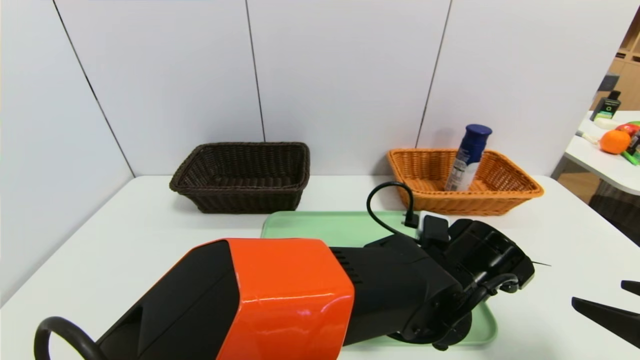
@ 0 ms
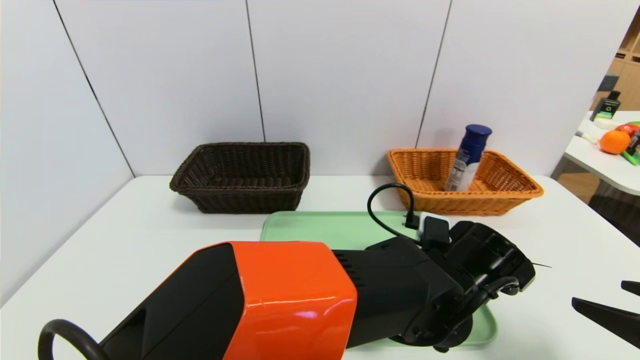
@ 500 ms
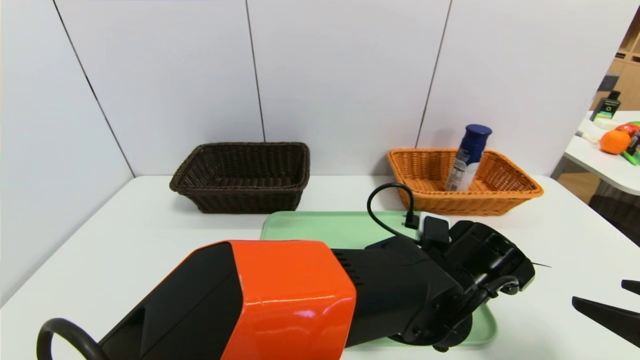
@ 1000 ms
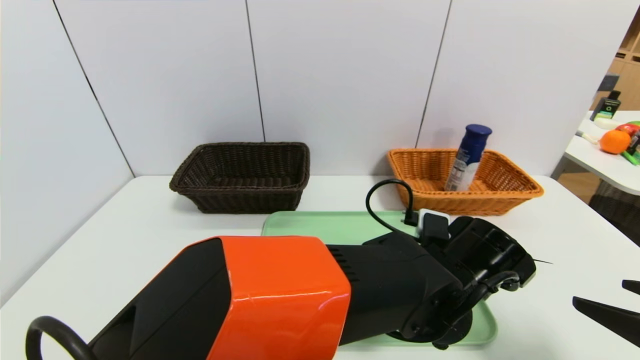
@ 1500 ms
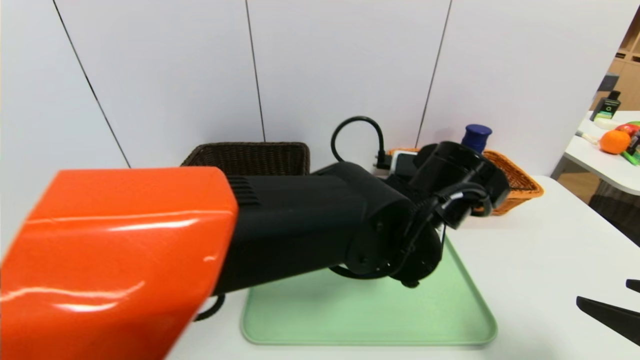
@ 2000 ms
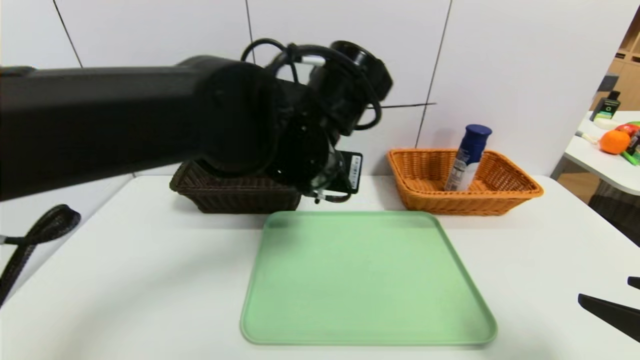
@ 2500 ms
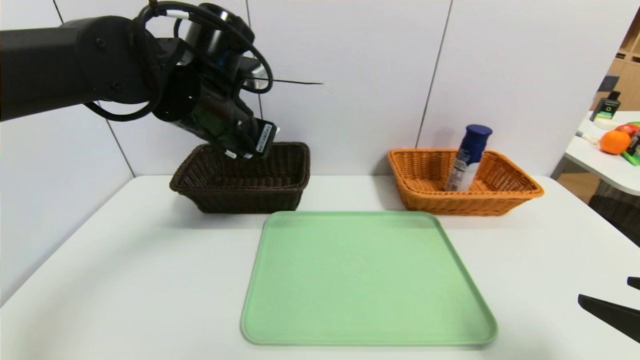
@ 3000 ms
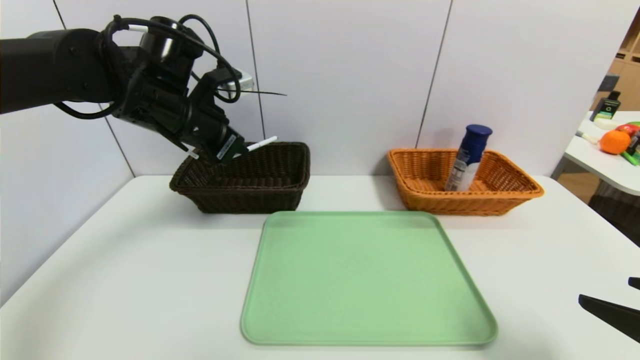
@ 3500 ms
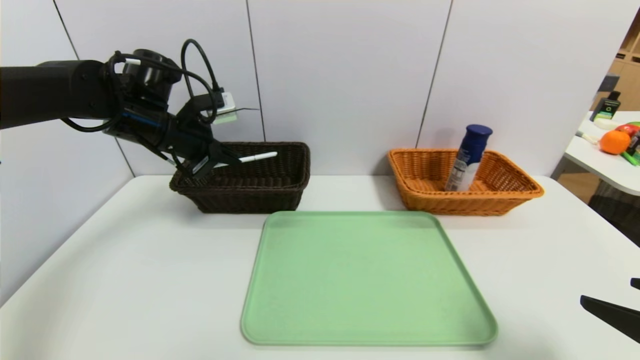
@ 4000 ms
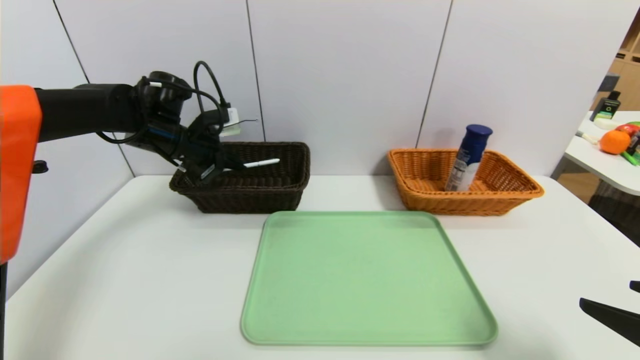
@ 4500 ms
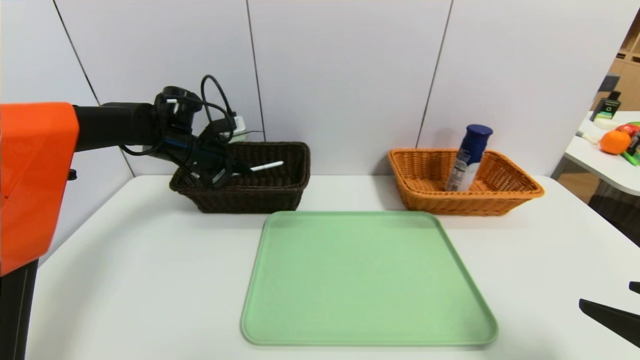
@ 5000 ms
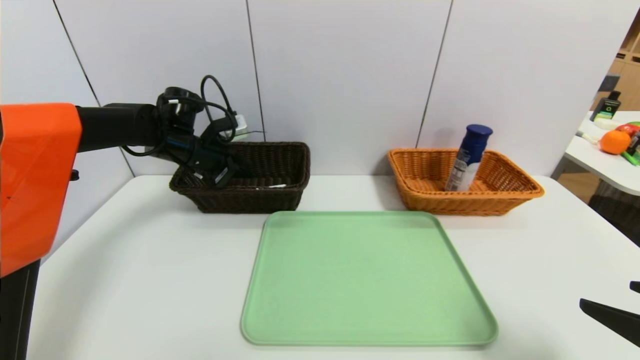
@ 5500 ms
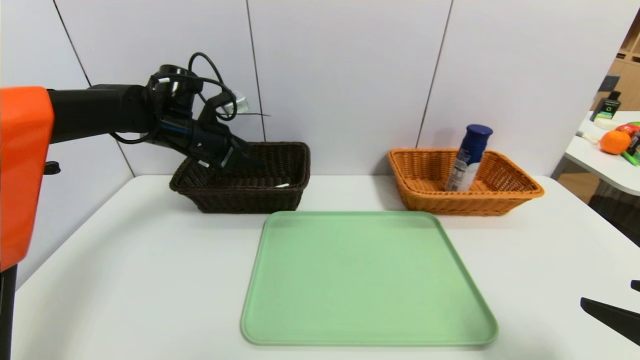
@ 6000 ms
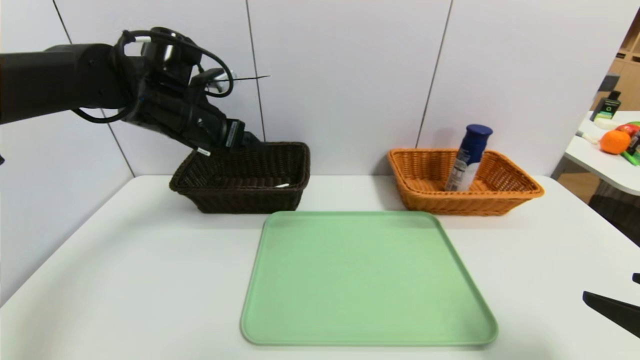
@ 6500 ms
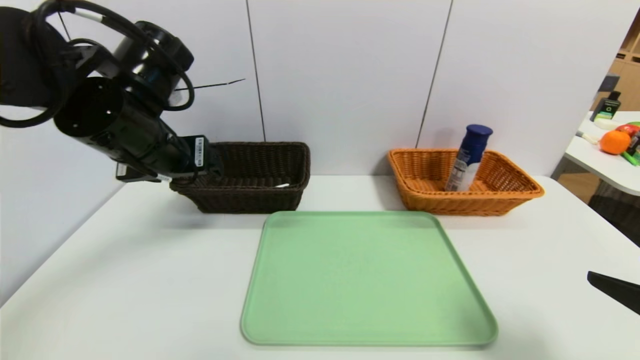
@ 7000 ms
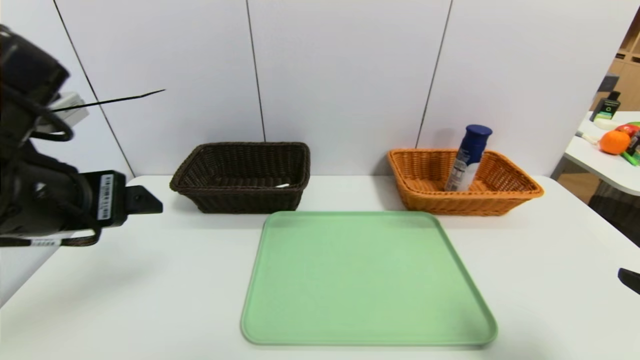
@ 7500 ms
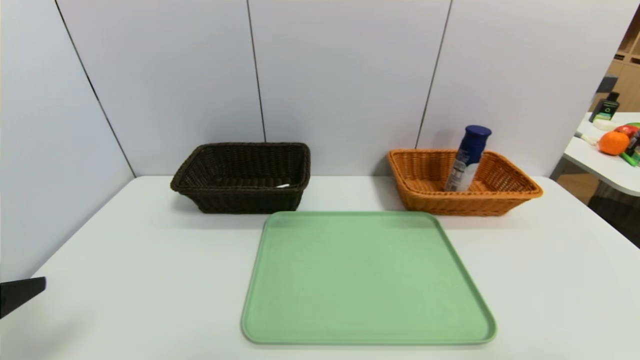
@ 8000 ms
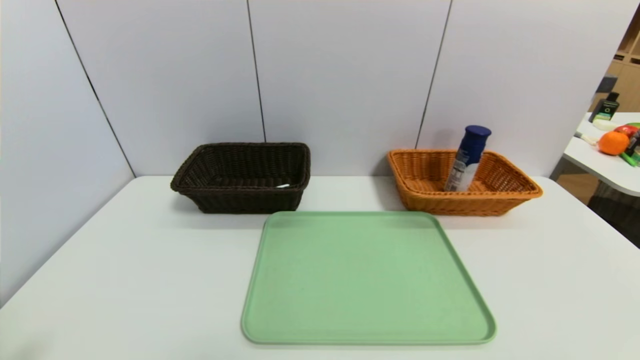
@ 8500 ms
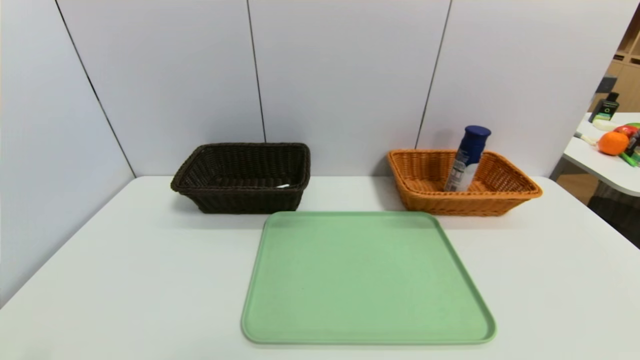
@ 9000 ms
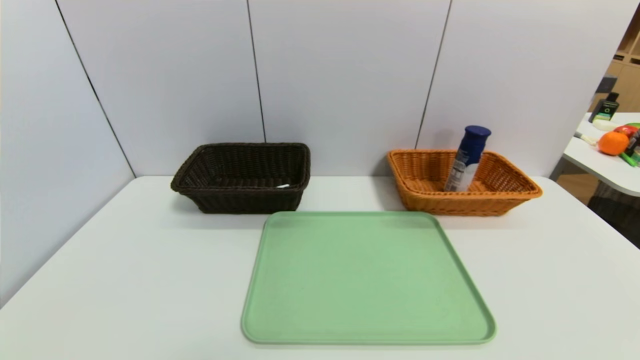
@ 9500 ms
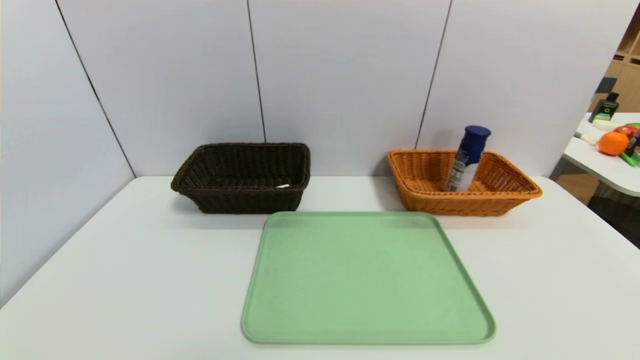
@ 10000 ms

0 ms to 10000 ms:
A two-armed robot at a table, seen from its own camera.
Task of the whole recording: place the food in the right basket with the right gripper, and place the non food items in the left basket with the left gripper.
Step, 0 ms to 5500 ms: Grasp the black marker and put it in the left basket.
0 ms to 2000 ms: The left gripper is displaced upward by roughly 10 cm, and closes.
2000 ms to 4000 ms: The left gripper travels to the left and forward by roughly 35 cm.
4000 ms to 6000 ms: The left gripper opens up.
6000 ms to 8000 ms: The left gripper travels backward by approximately 35 cm. The right gripper shifts some 5 cm backward.
8000 ms to 10000 ms: The left gripper moves downward and backward, roughly 15 cm.

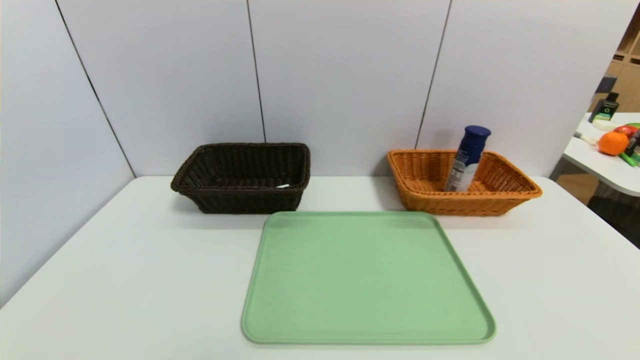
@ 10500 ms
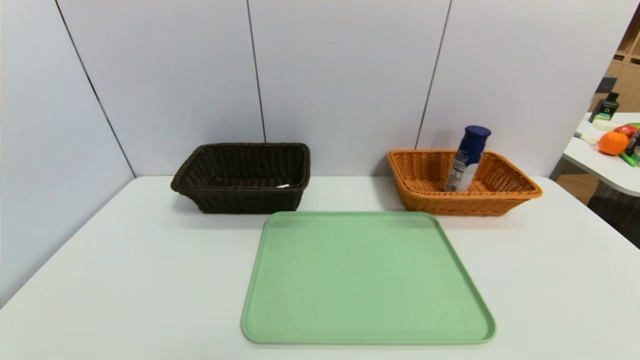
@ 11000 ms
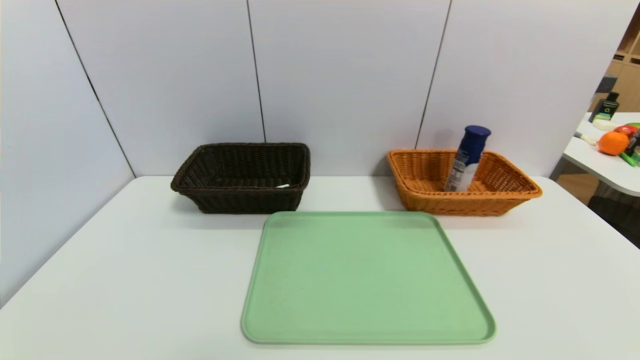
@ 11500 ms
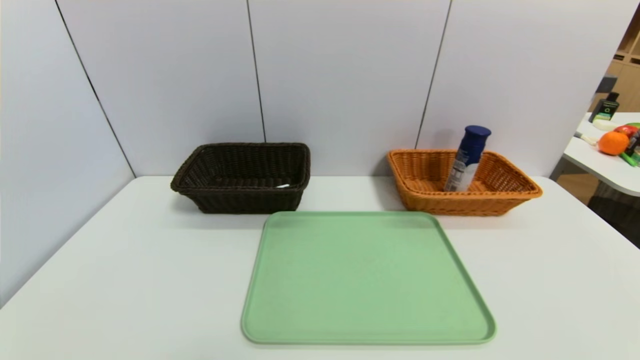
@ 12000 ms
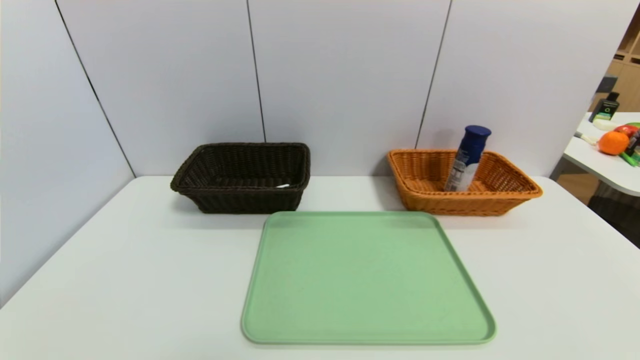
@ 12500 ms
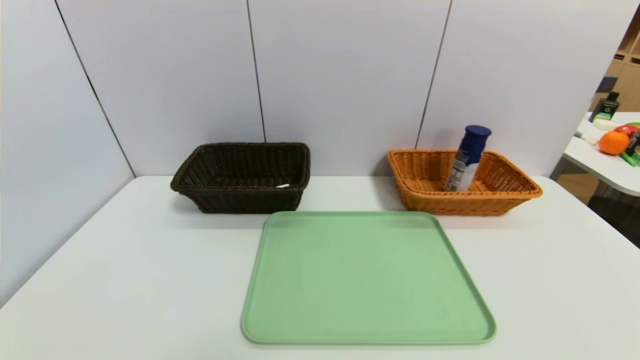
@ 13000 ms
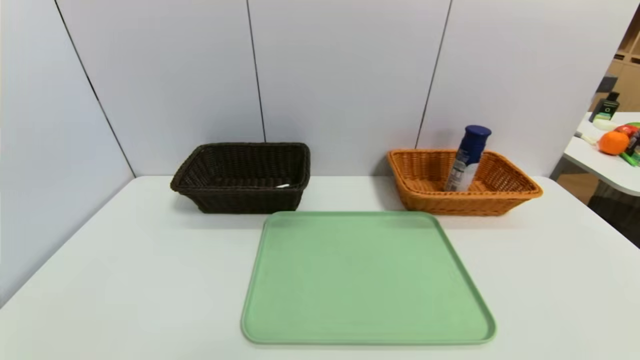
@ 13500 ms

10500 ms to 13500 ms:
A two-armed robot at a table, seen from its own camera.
Task of the whole recording: place the food in the right basket with the right gripper, and place the non food items in the left basket with the left gripper.
12000 ms to 13500 ms: Neither gripper changes place.

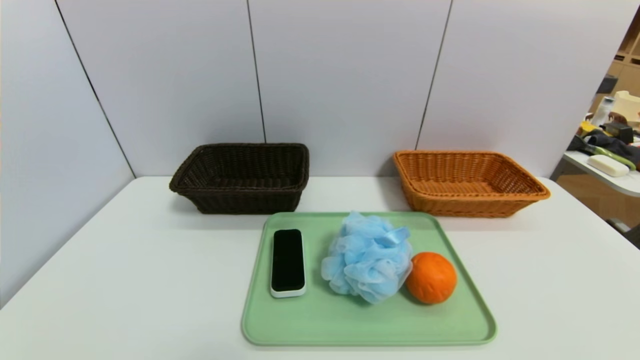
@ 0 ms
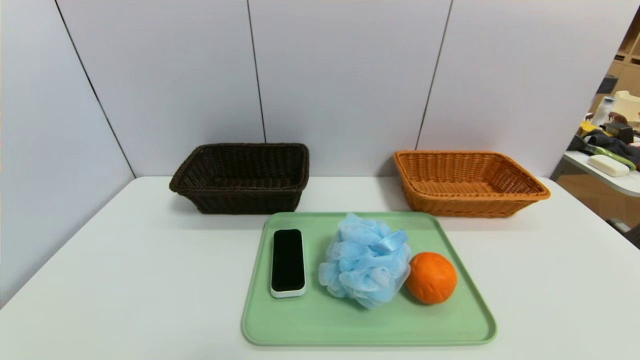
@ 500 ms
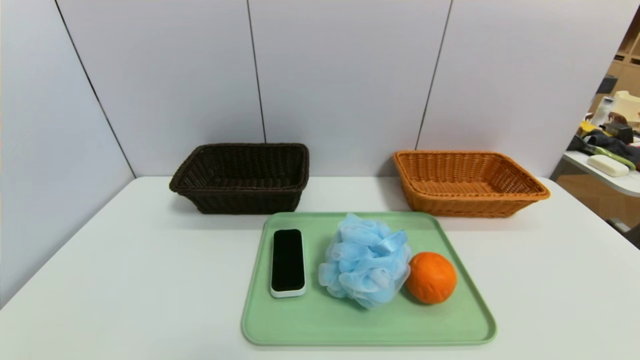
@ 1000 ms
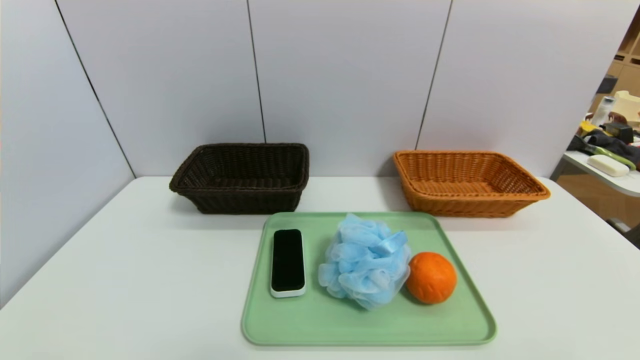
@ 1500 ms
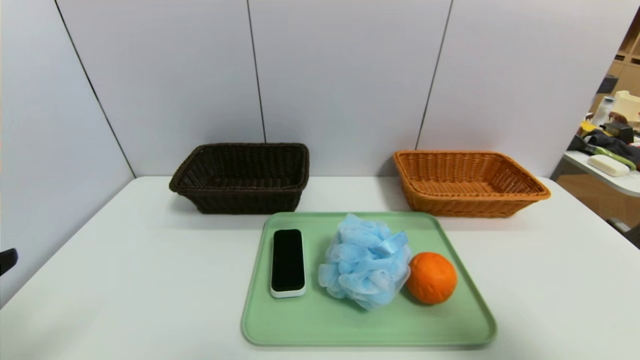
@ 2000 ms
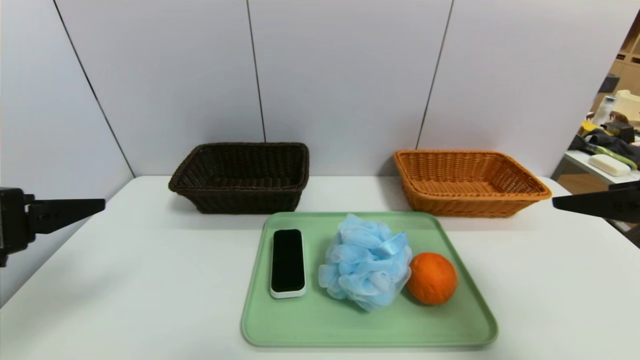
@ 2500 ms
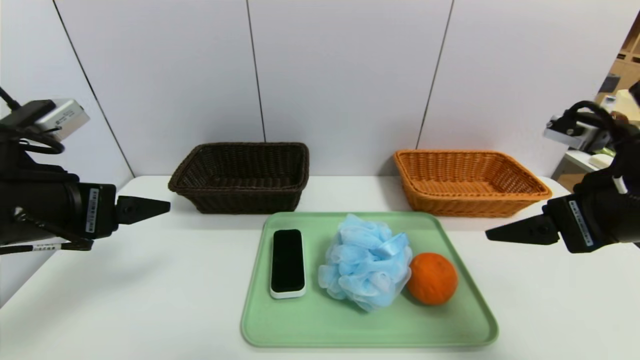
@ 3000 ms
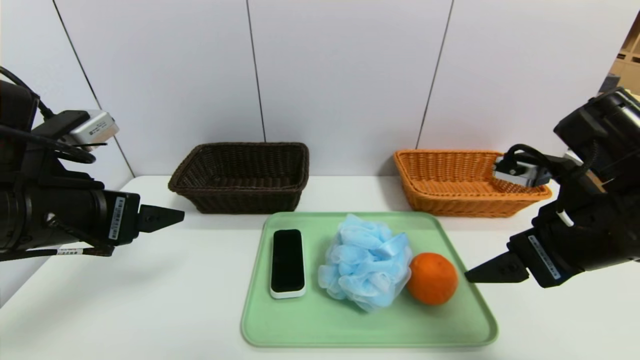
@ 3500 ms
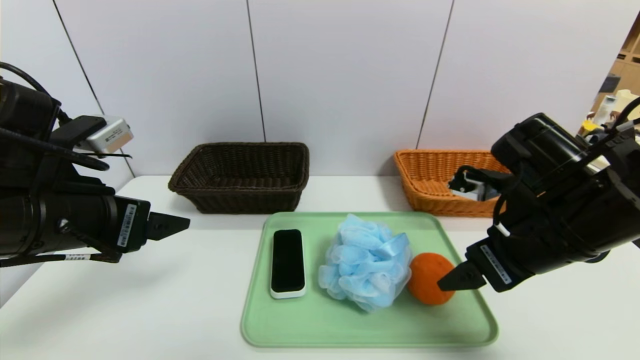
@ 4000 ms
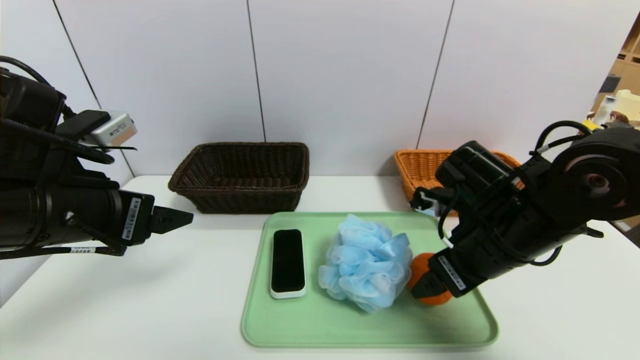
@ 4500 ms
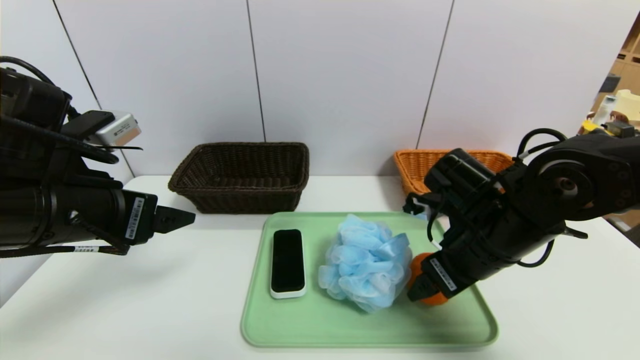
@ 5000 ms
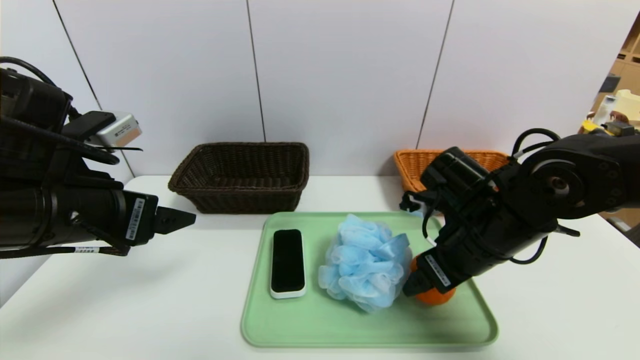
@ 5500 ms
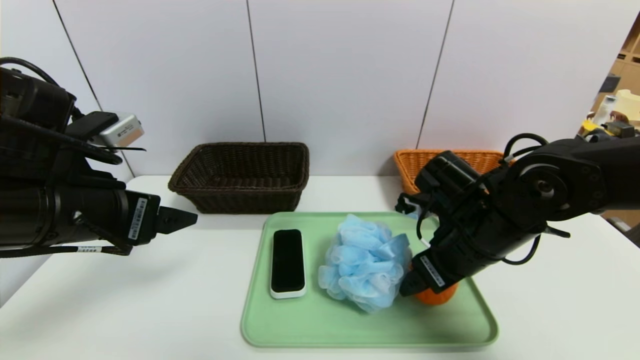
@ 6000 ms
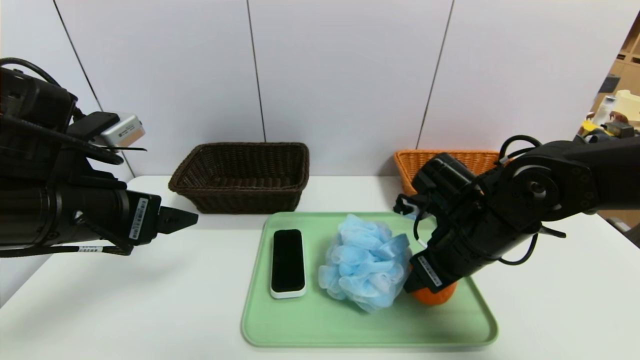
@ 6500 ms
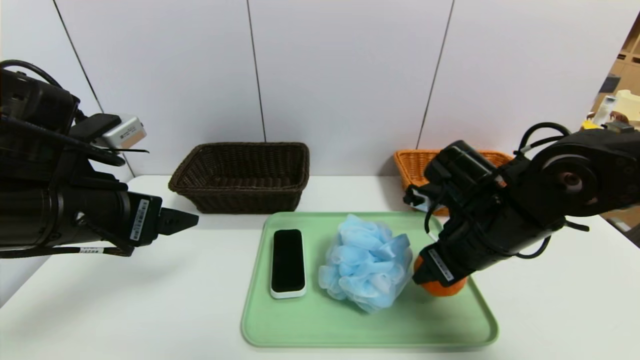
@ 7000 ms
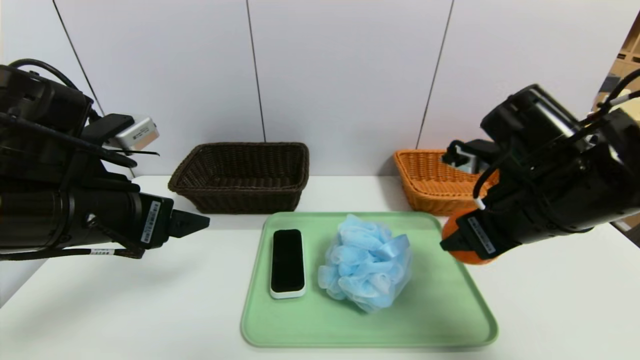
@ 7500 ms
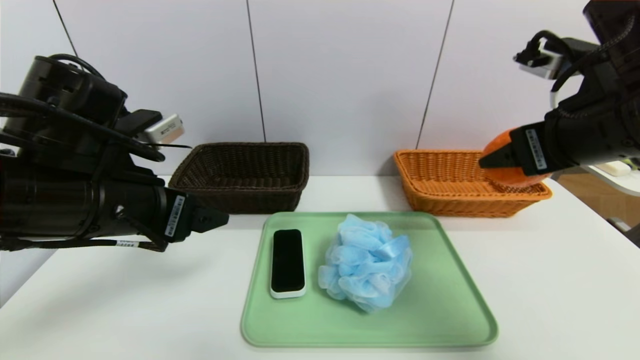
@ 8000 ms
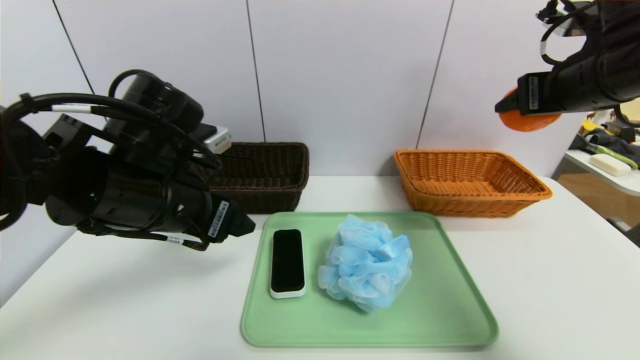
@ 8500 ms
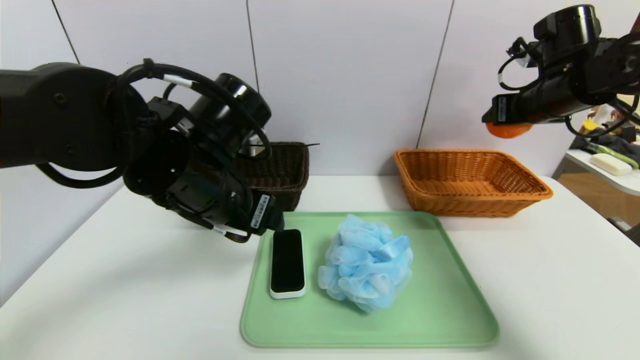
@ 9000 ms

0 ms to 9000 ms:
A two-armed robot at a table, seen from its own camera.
Task of the whole recording: place the food in the right basket with the right gripper, and place the non food items in the left basket with the left gripper.
0 ms to 2000 ms: Both grippers travel together upward, approximately 20 cm.
2000 ms to 4500 ms: The right gripper shifts about 25 cm forward, to the left and downward. The left gripper heads forward and to the right, covering some 15 cm.
4500 ms to 7000 ms: The right gripper closes.
7000 ms to 9000 ms: The left gripper heads to the right and forward, covering roughly 15 cm, while the right gripper shifts some 20 cm forward, to the right and upward.
